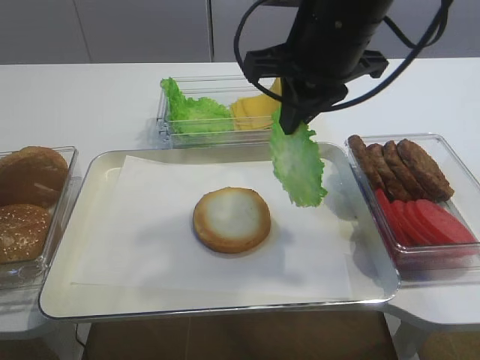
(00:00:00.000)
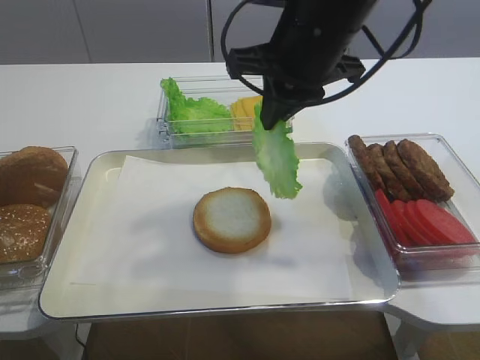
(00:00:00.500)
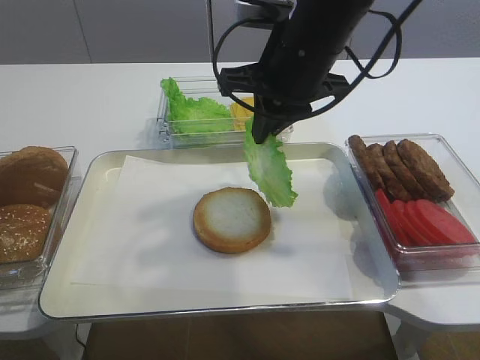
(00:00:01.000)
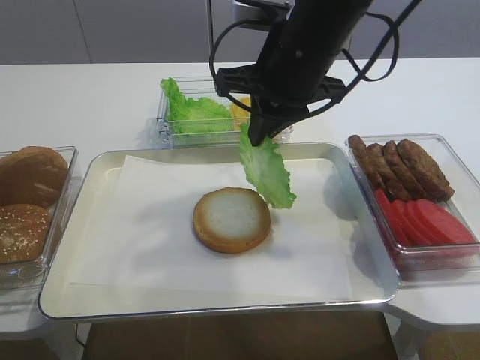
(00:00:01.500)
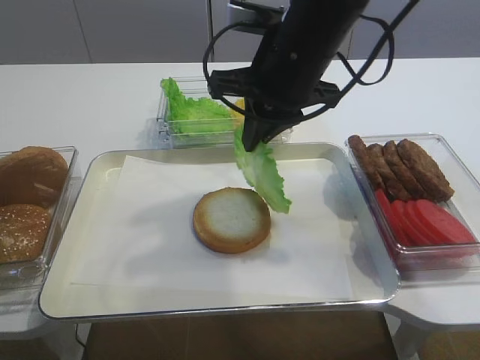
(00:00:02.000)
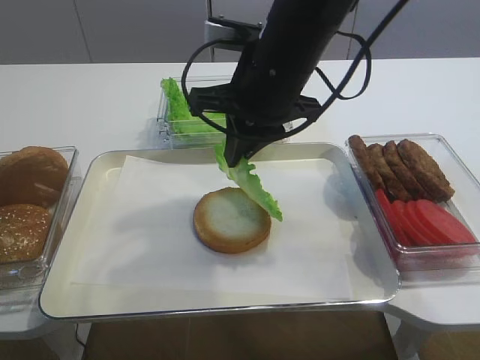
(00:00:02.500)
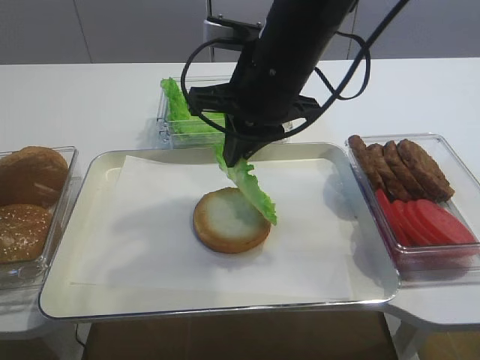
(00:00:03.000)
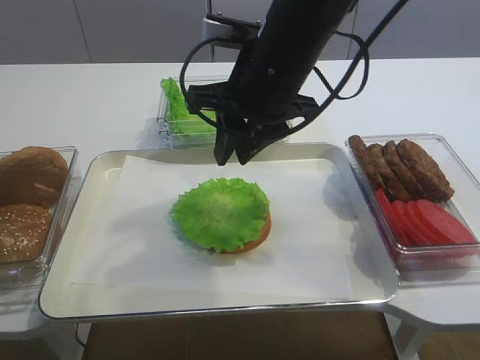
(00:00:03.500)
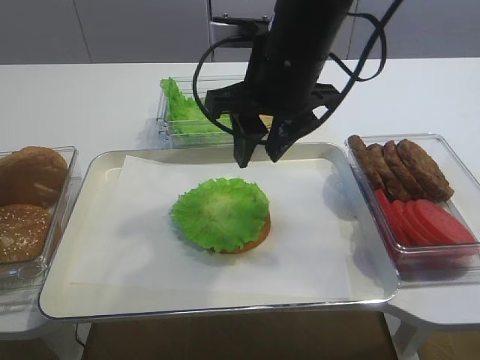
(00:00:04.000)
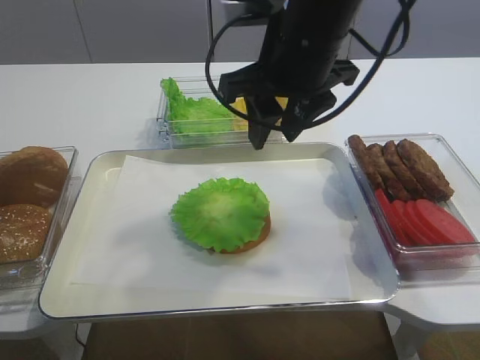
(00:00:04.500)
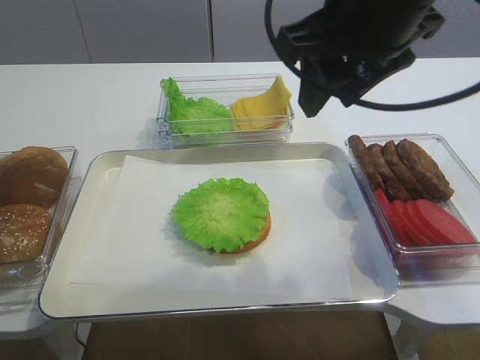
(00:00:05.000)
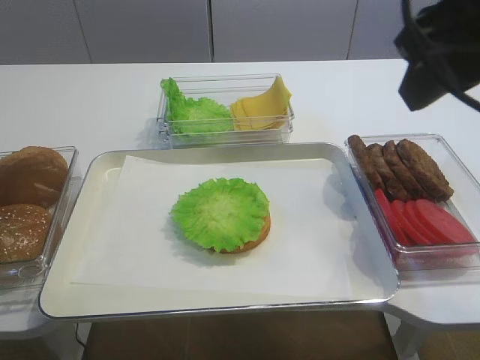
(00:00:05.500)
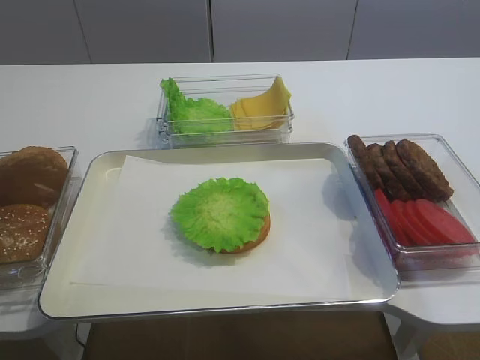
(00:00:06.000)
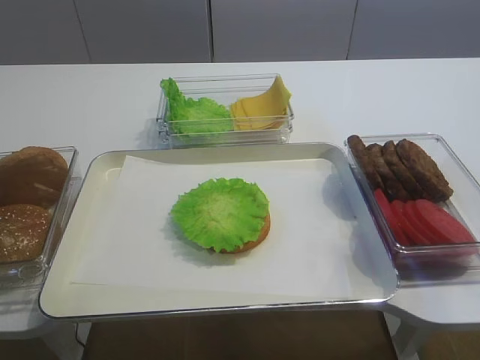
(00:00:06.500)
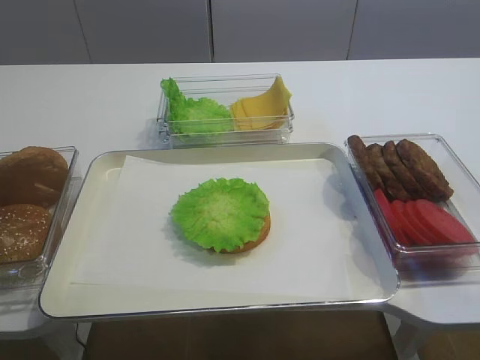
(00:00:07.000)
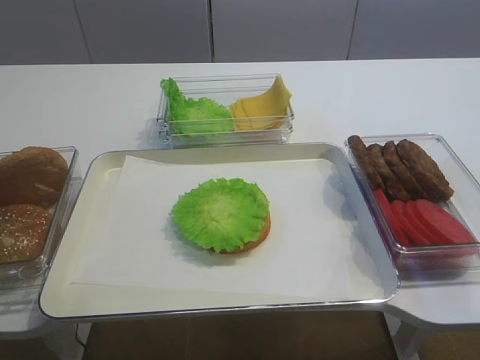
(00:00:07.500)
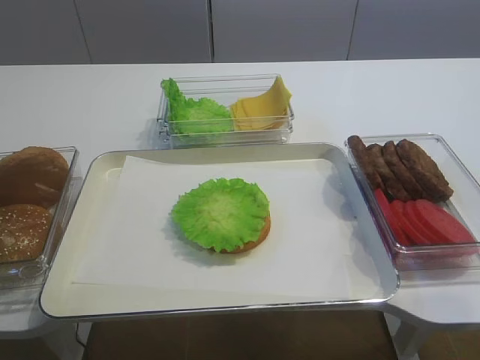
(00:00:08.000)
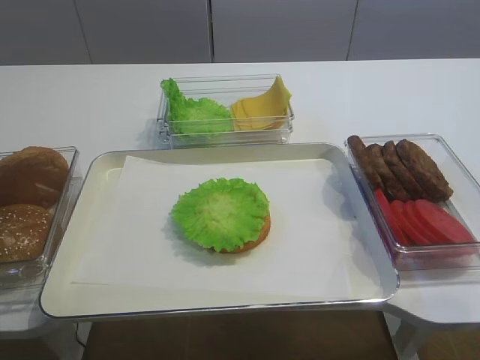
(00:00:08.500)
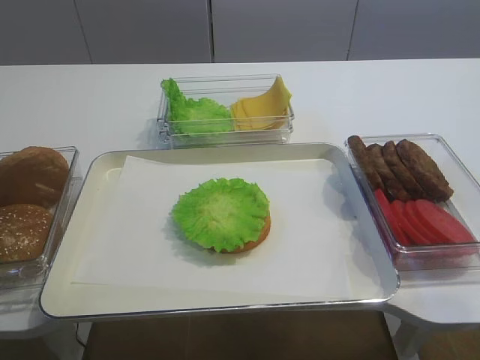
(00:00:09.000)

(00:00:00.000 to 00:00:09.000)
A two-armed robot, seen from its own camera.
Step, 00:00:00.000 - 00:00:04.500: Place the lettuce leaf on the bread slice with the right gripper.
00:00:00.000 - 00:00:02.000: There are only small adjustments of the grippers.
00:00:02.000 - 00:00:04.500: The right gripper opens its fingers.
00:00:04.500 - 00:00:07.000: The right gripper moves backward and to the right, roughly 35 cm.
00:00:07.000 - 00:00:09.000: The right gripper shifts by roughly 5 cm.
